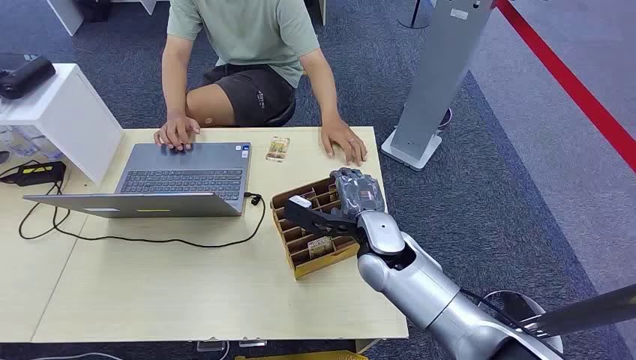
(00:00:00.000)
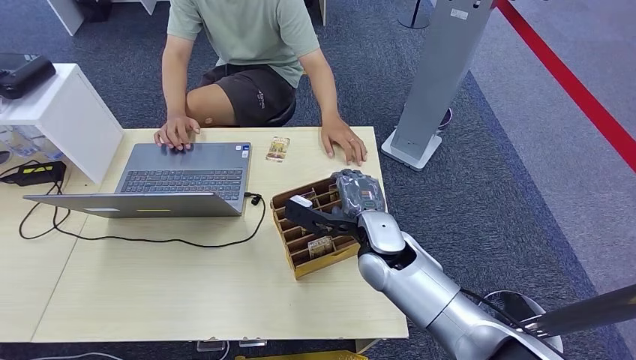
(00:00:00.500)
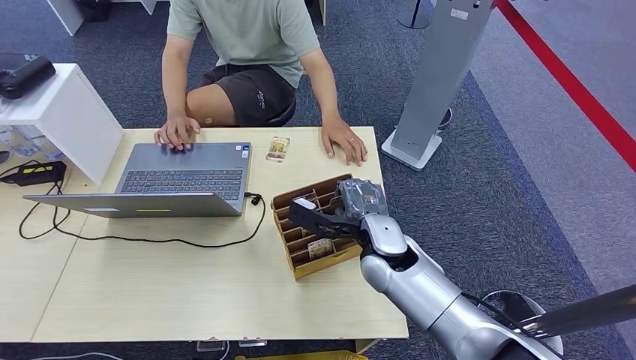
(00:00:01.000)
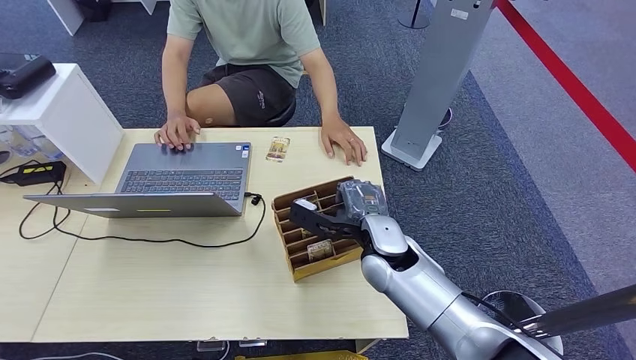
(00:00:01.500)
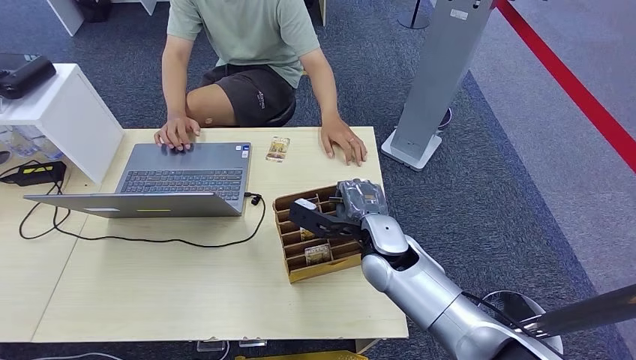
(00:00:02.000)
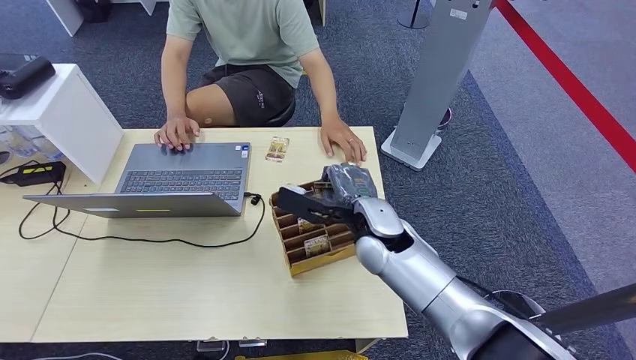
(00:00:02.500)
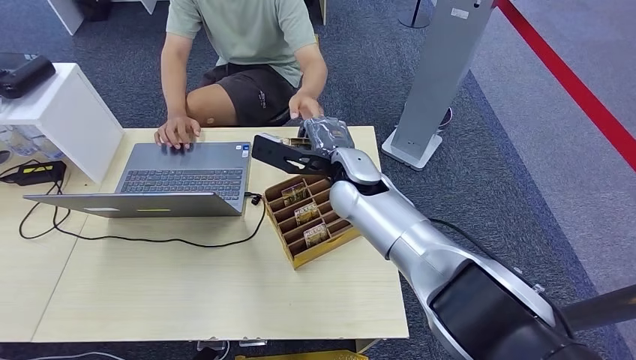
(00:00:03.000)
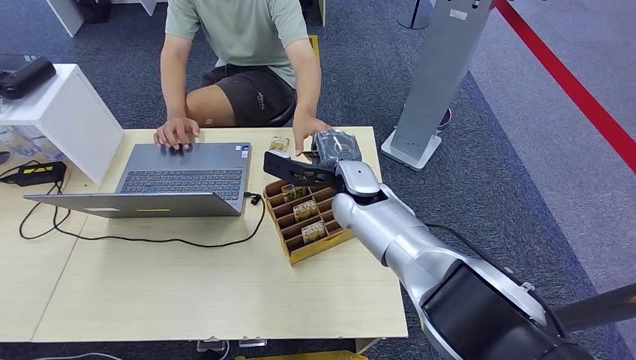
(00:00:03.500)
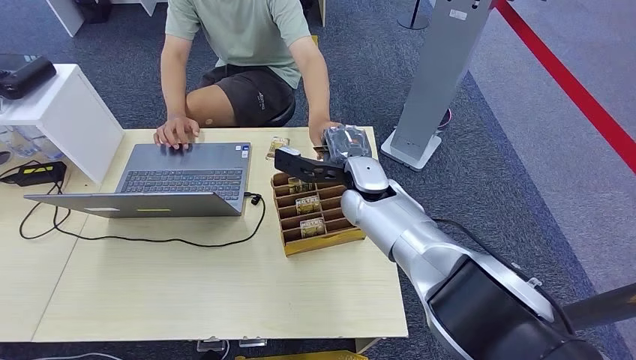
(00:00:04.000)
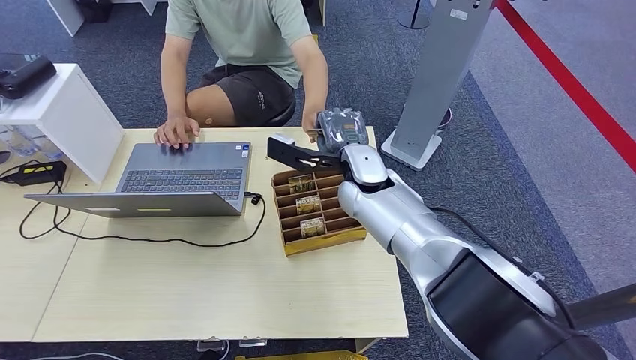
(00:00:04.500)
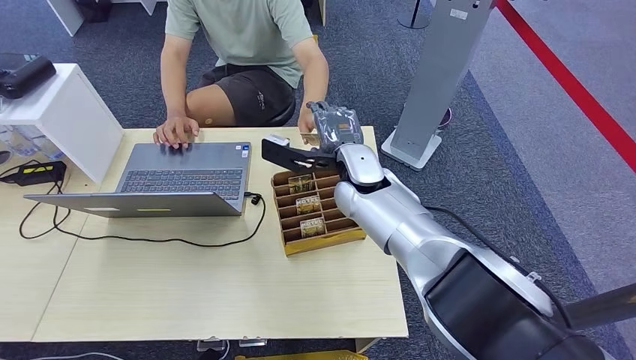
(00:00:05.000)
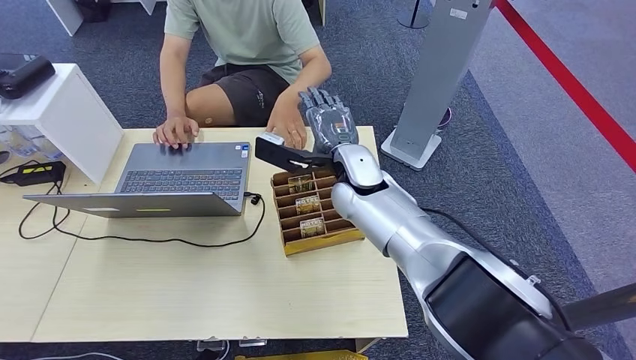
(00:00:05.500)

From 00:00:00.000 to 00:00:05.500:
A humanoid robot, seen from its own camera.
Step, from 00:00:00.000 to 00:00:02.500: Pick up the key card from the card box.
Step, from 00:00:03.000 to 00:00:05.500: Hand the key card to the target.
From 00:00:02.000 to 00:00:03.500: The right hand goes roughly 5 cm forward.
From 00:00:03.500 to 00:00:05.500: The hands make only small movements.

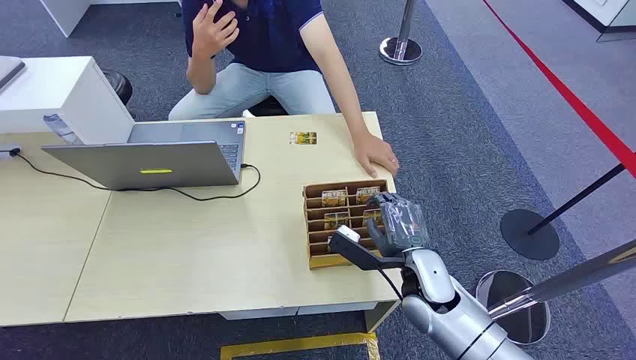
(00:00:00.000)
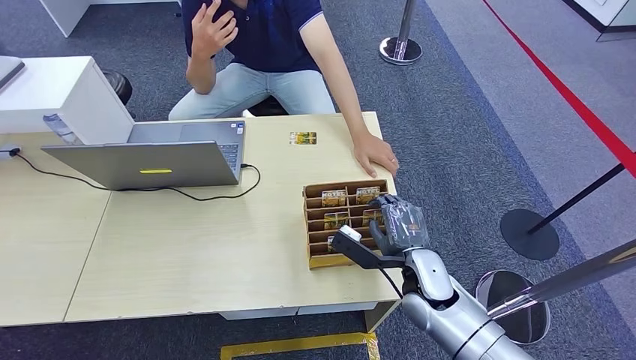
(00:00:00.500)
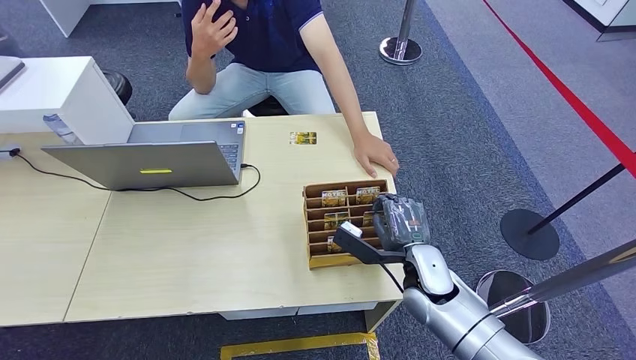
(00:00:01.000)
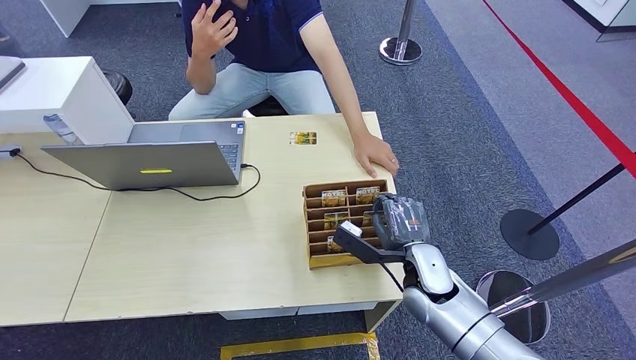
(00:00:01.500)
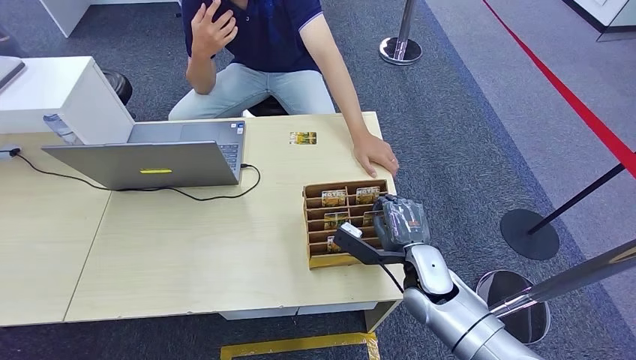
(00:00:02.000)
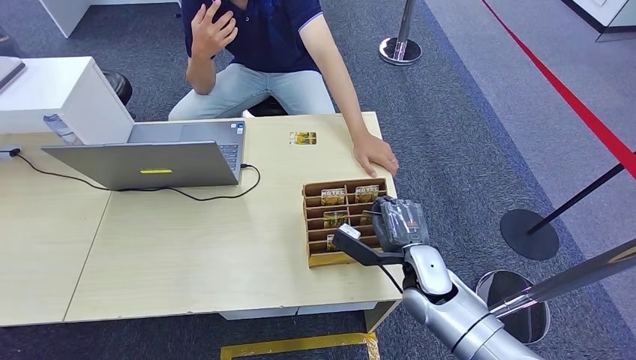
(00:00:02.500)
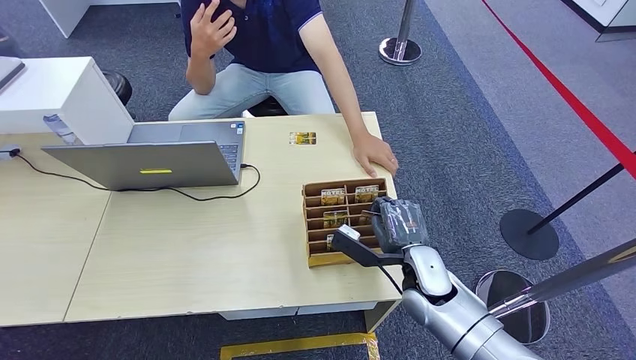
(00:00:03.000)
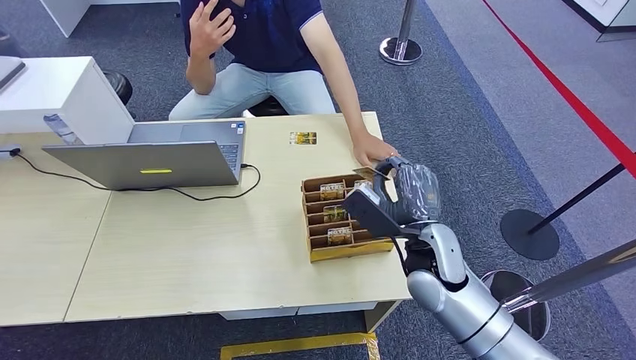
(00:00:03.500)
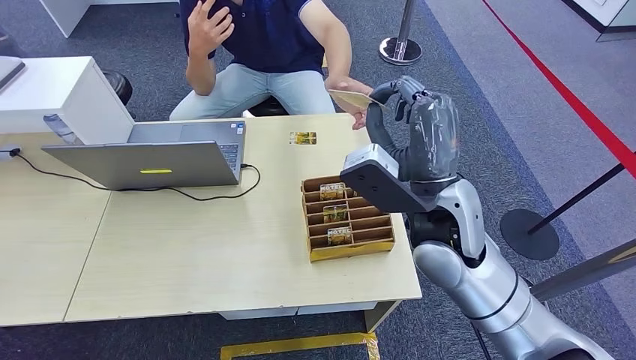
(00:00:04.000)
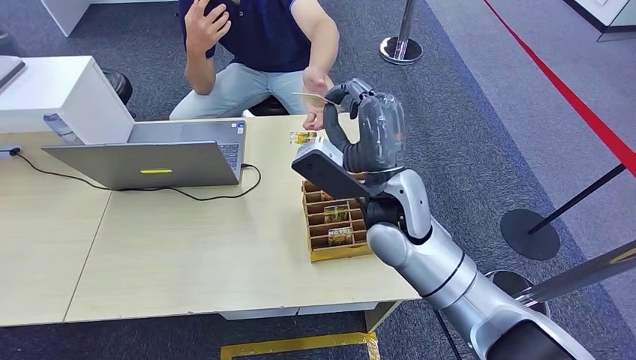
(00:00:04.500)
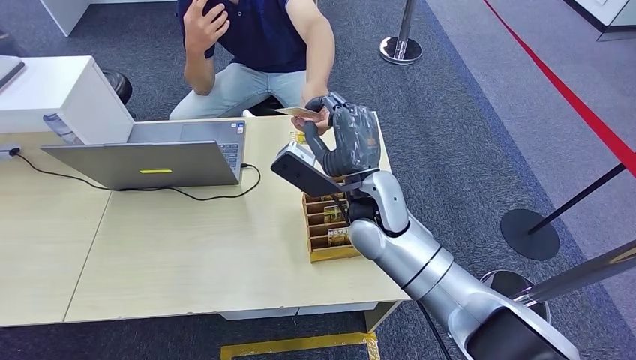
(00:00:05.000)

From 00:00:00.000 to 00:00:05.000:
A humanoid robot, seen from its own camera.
Step, from 00:00:00.000 to 00:00:03.000: Pick up the key card from the card box.
Step, from 00:00:03.500 to 00:00:05.000: Hand the key card to the target.
From 00:00:02.500 to 00:00:05.000: The right hand moves upward, to the left and forward, approximately 20 cm.
